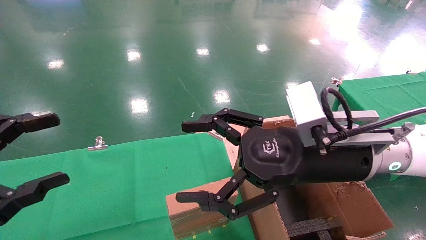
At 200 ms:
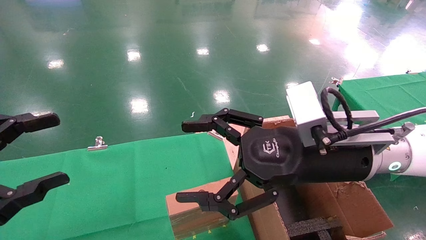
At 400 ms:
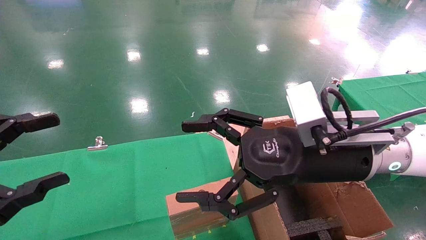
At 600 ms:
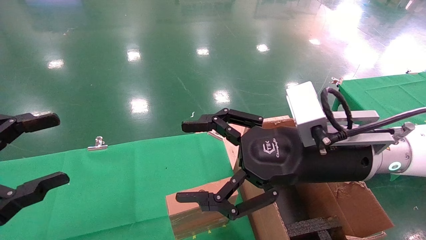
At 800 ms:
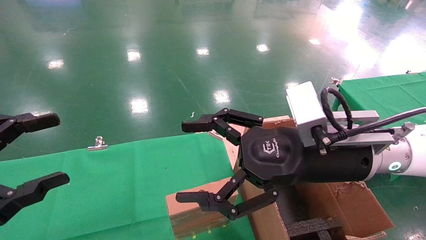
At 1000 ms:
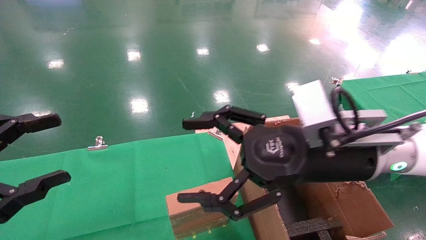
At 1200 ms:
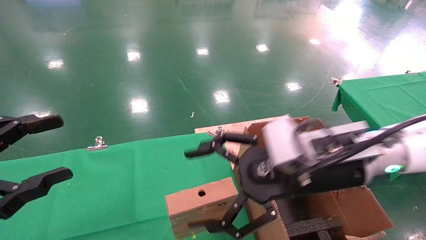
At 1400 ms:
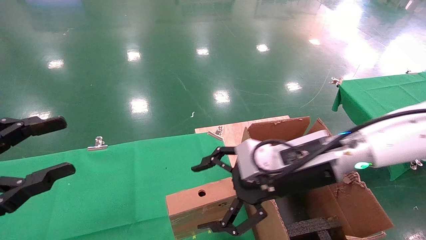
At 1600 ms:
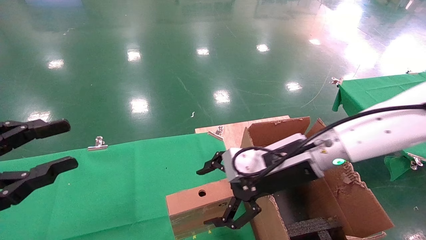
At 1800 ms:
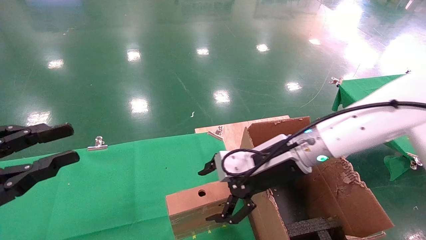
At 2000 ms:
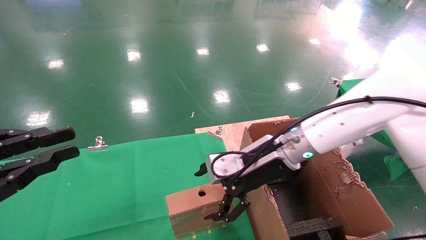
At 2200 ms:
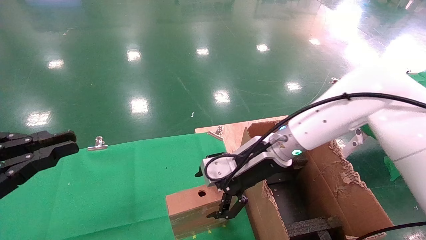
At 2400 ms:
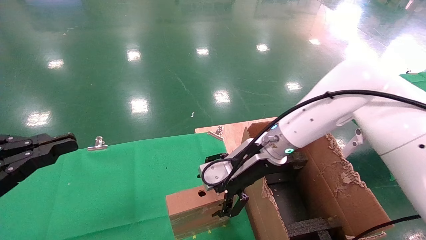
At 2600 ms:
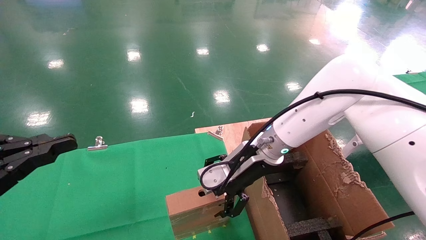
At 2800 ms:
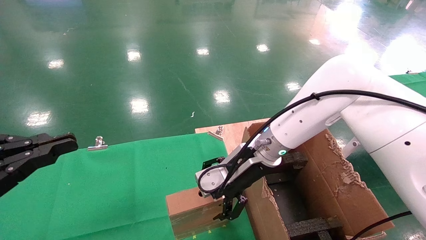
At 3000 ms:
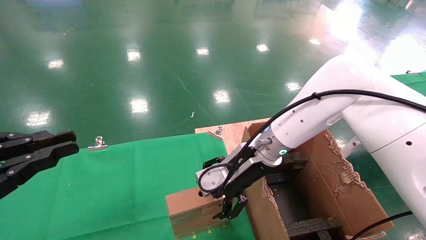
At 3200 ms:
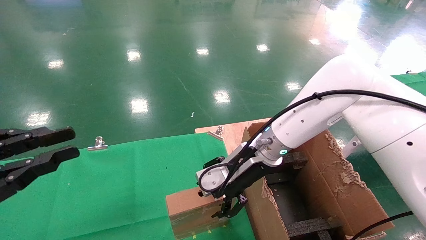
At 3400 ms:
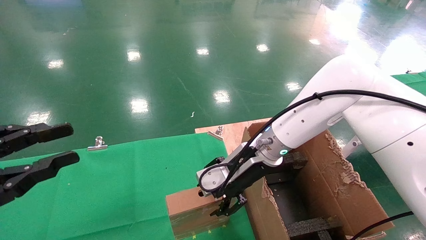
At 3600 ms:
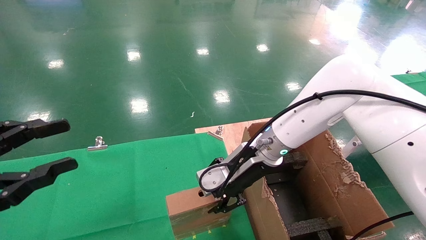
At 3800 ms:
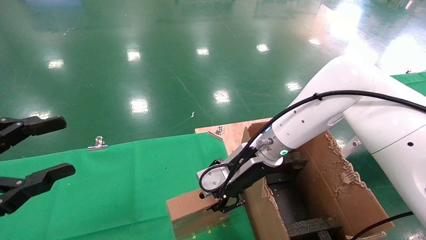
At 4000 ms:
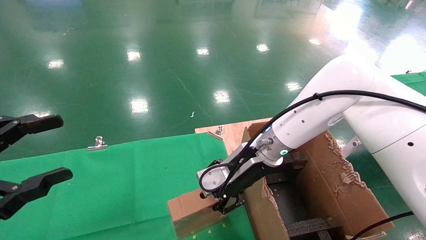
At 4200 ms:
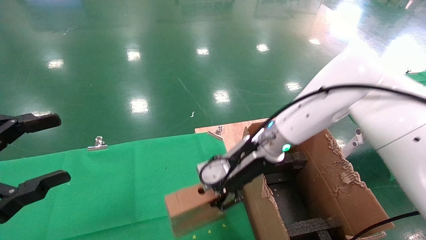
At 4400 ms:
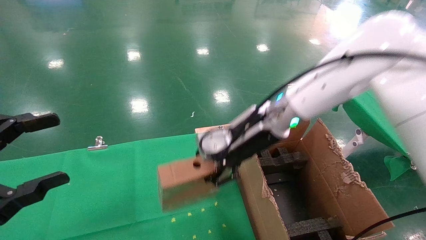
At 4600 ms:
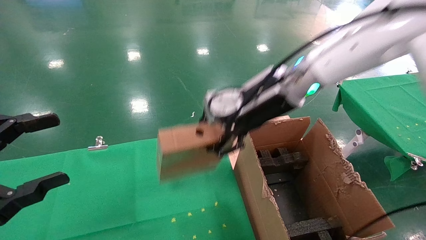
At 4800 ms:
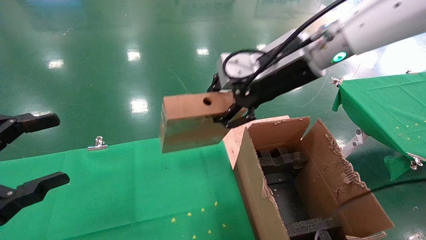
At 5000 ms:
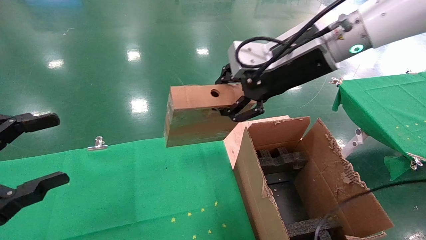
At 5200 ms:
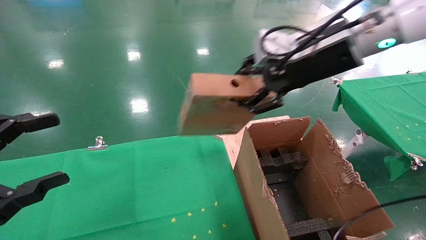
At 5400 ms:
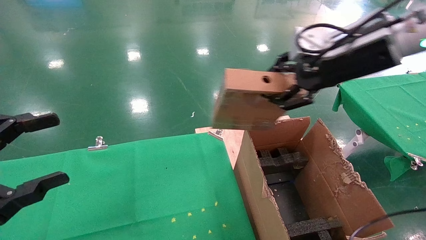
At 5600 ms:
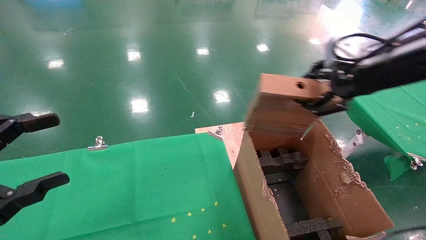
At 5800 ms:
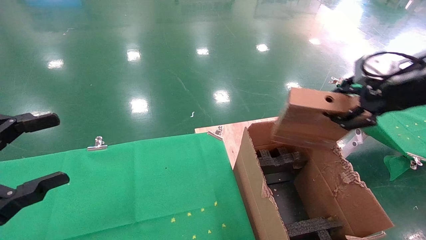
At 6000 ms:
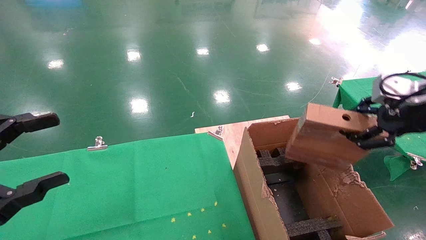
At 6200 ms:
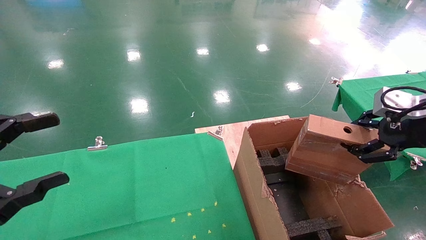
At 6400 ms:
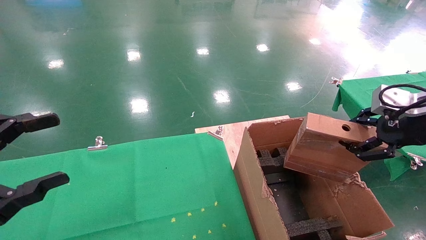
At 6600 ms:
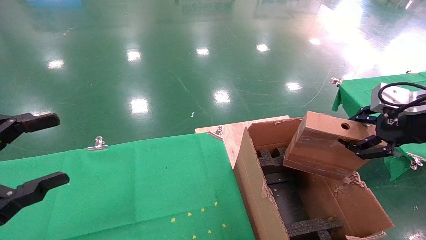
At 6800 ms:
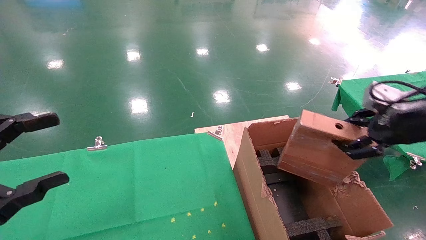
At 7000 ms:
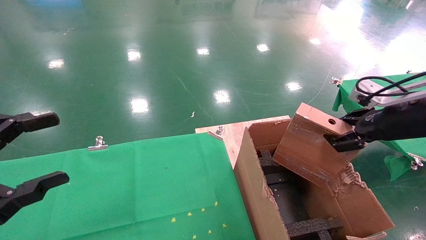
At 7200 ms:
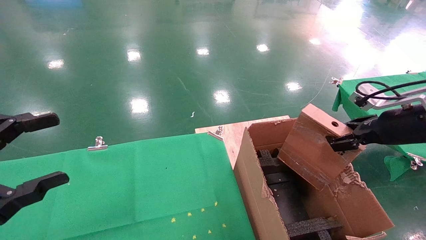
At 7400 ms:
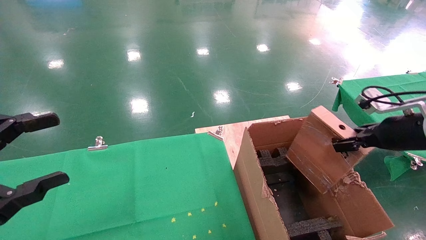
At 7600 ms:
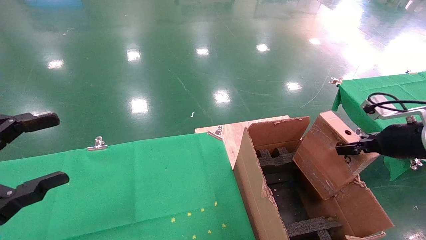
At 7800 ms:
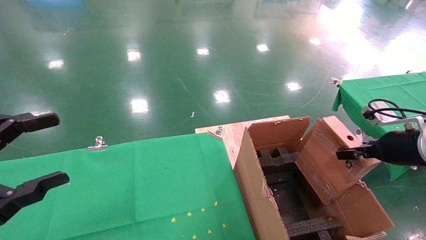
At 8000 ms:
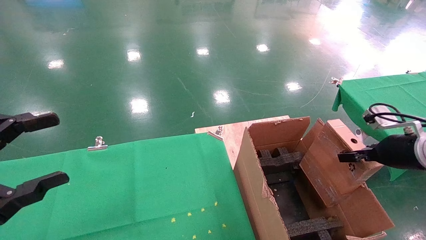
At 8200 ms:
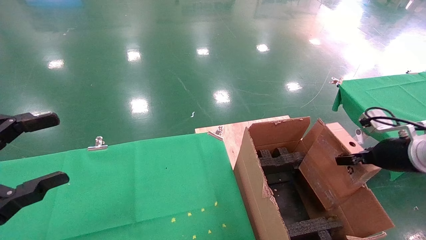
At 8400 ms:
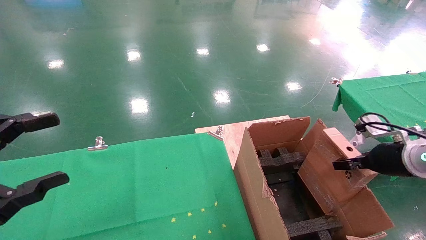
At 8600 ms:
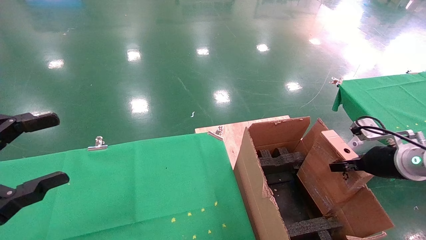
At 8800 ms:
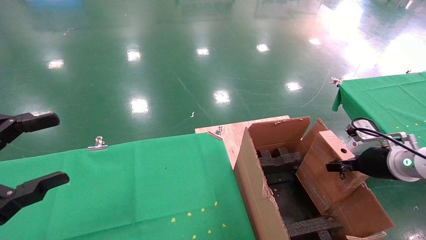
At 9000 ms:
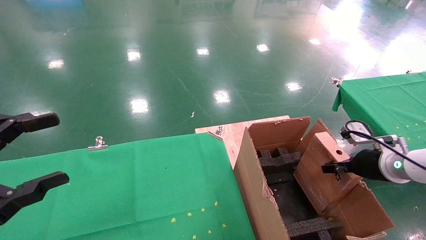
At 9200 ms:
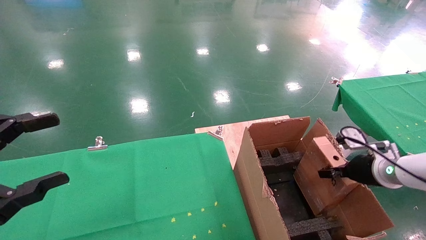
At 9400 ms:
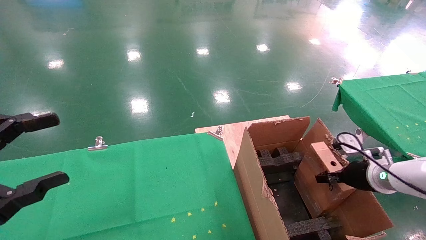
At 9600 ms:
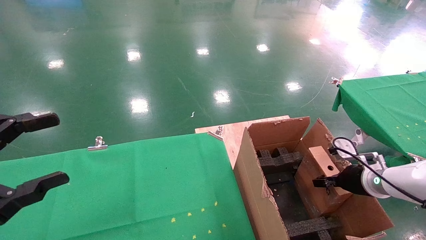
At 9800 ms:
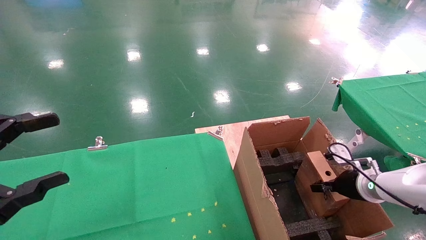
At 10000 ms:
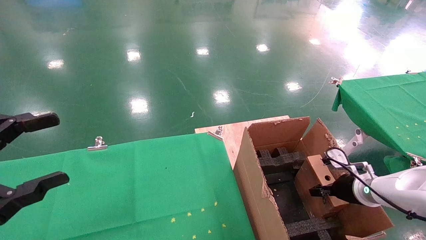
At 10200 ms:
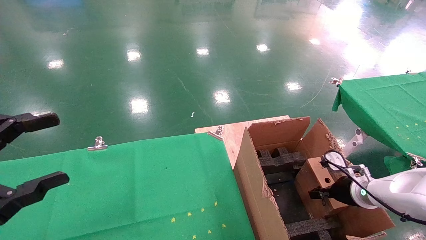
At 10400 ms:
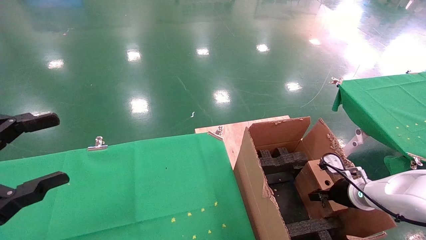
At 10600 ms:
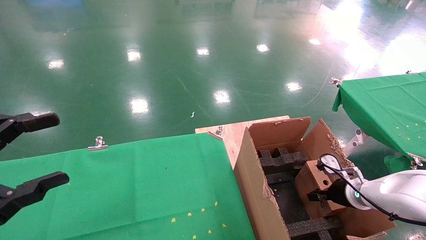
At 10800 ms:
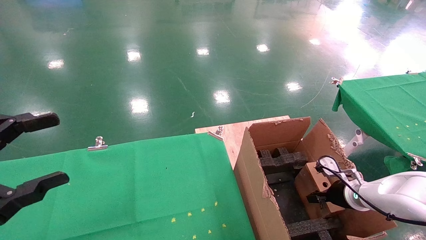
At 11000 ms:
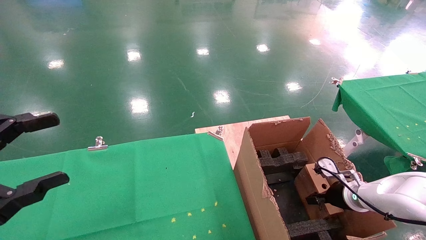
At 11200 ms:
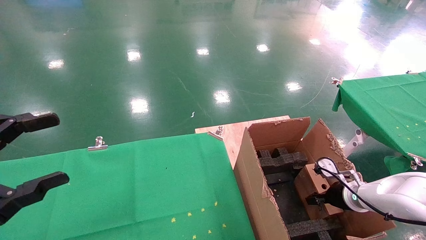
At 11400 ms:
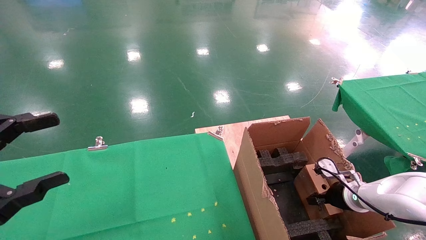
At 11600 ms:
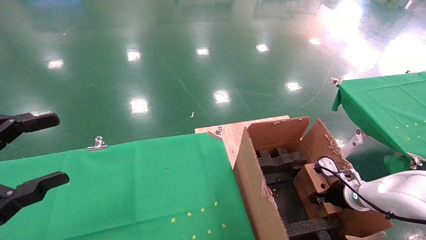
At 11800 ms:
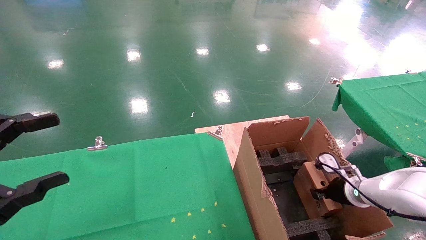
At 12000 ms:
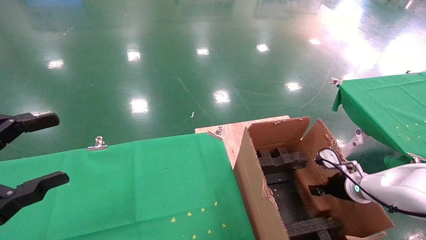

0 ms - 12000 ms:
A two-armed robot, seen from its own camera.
Task of the whole recording: using a robotic arm to pick up a cardboard box and palace it the carton.
Step, 1200 ms - 3800 ms: Pick up the mouse and the power cord paper box.
0 ms - 1600 ms: The left gripper closes. Meanwhile the right gripper is displaced forward by roughly 5 cm.
1600 ms - 3000 ms: The left gripper closes up. The right gripper travels forward by about 5 cm.
3000 ms - 4400 ms: The right gripper shifts some 10 cm upward, and closes up. The left gripper opens its fingers.
4400 ms - 6000 ms: The right gripper shifts about 30 cm to the right and backward.
6000 ms - 7600 ms: The right gripper heads downward, covering some 10 cm.
7600 ms - 9000 ms: The right gripper travels downward by roughly 10 cm.
9000 ms - 10400 ms: The right gripper is displaced downward by approximately 10 cm.
10400 ms - 12000 ms: The right gripper opens up.

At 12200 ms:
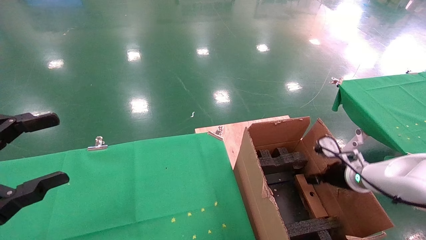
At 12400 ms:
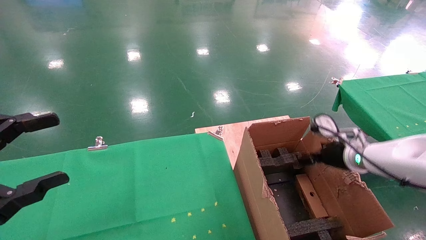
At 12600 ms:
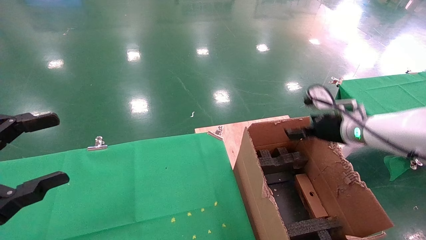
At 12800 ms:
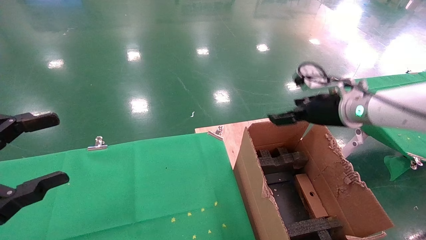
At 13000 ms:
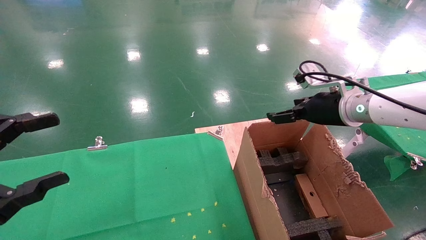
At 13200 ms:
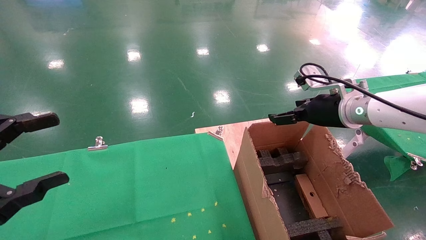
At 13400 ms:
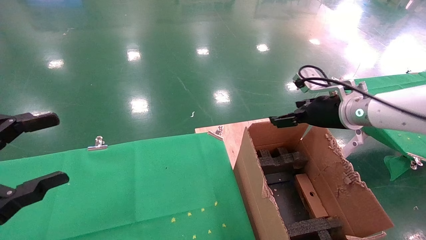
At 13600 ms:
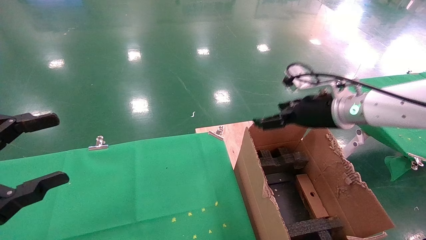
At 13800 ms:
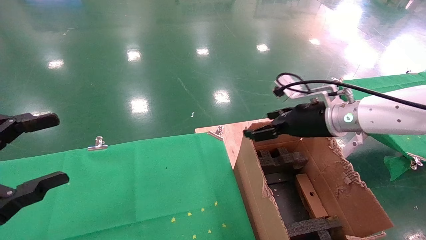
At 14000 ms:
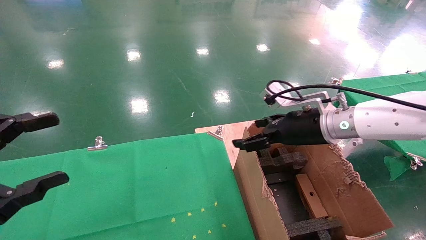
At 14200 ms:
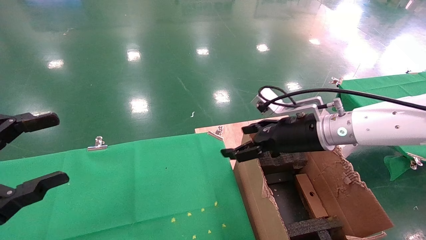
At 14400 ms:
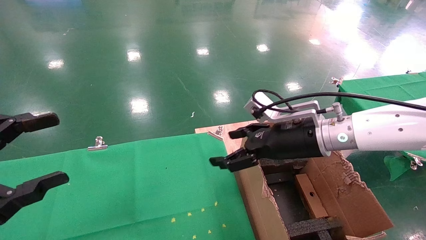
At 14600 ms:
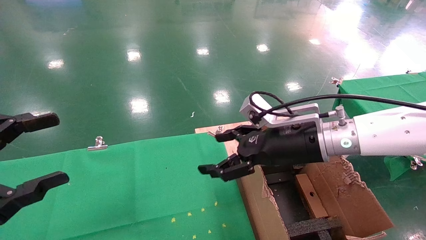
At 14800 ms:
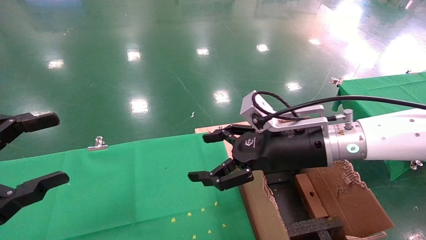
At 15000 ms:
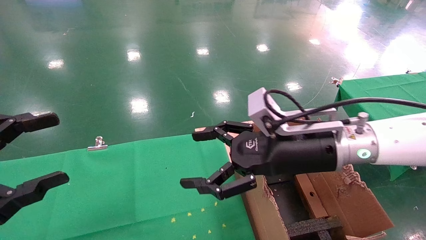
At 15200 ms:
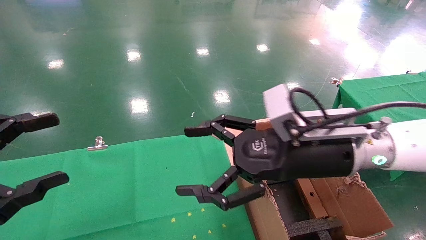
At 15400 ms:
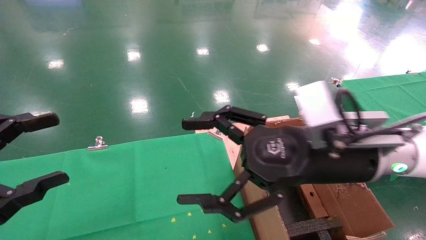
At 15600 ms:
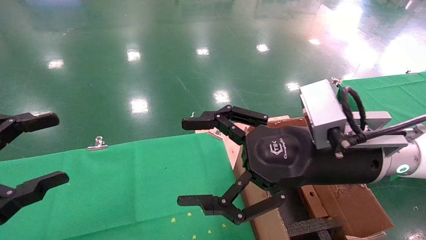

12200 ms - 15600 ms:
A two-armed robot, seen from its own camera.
Task of the whole recording: using a robotic arm to pick up a cardboard box and palace it the carton.
12200 ms - 13800 ms: The right gripper heads upward and to the left, covering approximately 20 cm, and opens its fingers.
13800 ms - 15600 ms: The right gripper heads backward and to the left, covering roughly 15 cm.
